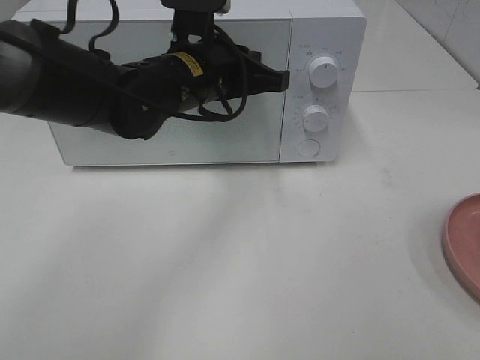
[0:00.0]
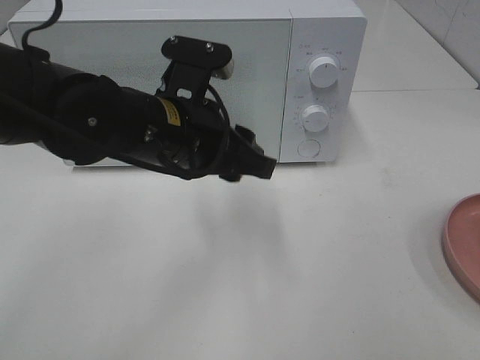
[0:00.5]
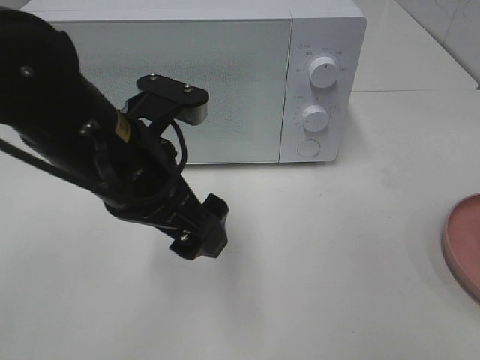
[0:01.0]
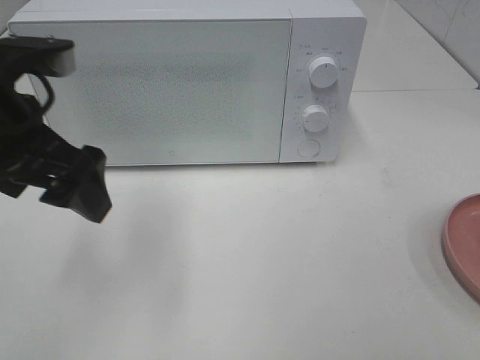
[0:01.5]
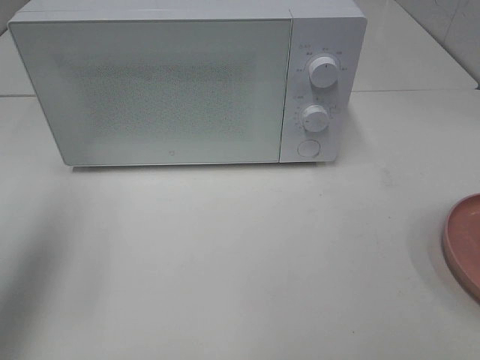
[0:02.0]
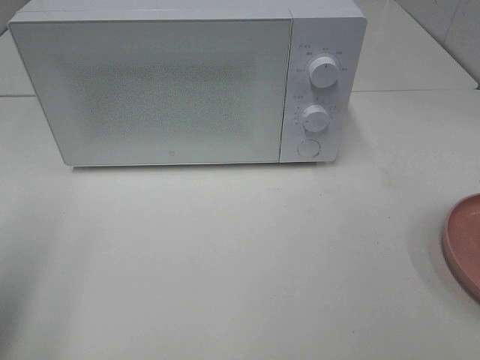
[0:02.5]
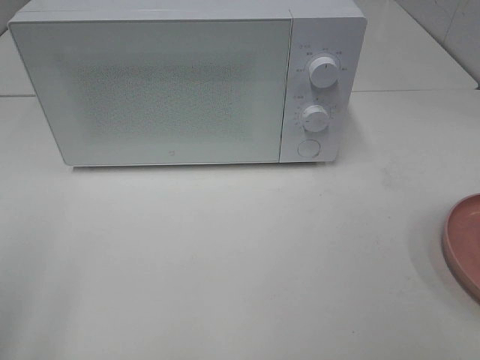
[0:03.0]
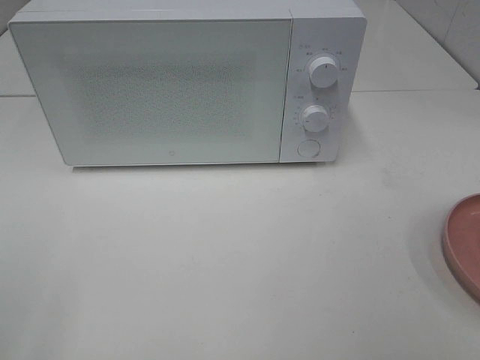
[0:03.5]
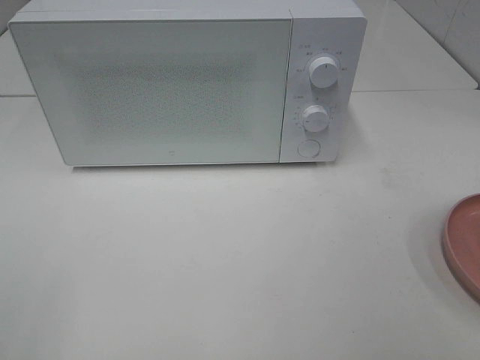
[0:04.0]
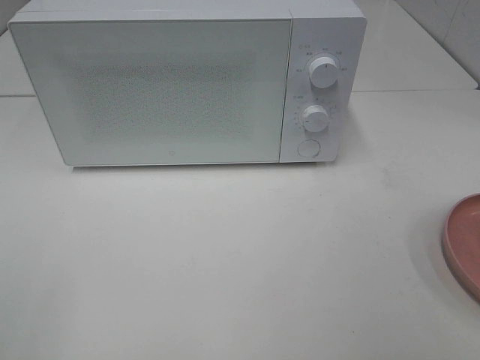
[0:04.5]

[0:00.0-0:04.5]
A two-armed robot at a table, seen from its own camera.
Task of the whole recording: Heat the burger.
0:00.0 to 0:02.0: The left gripper travels to the left, backward and upward by roughly 30 cm, and opens.
0:02.0 to 0:04.5: The left gripper moves backward, some 20 cm.

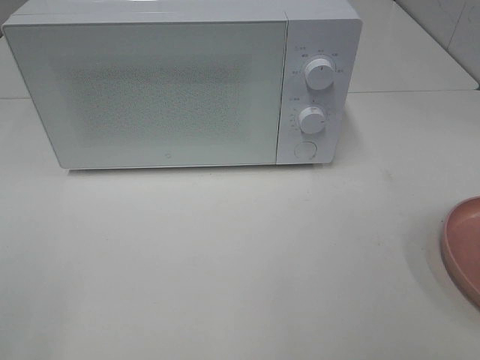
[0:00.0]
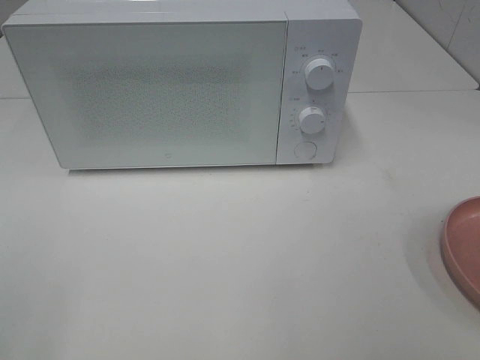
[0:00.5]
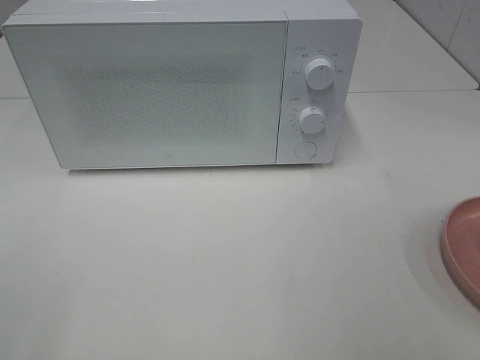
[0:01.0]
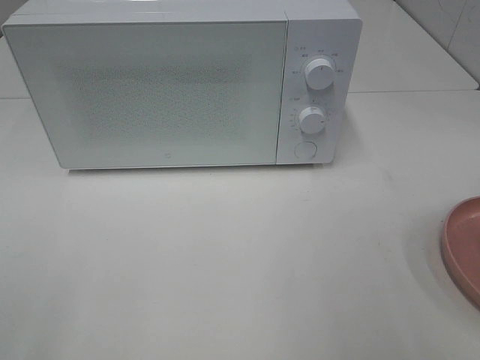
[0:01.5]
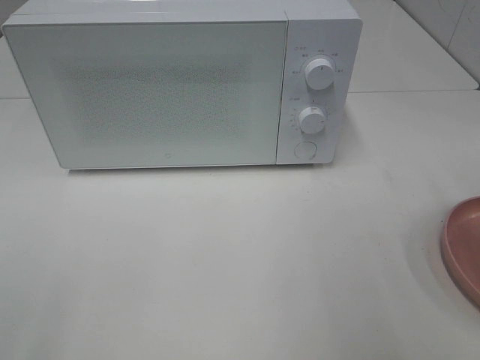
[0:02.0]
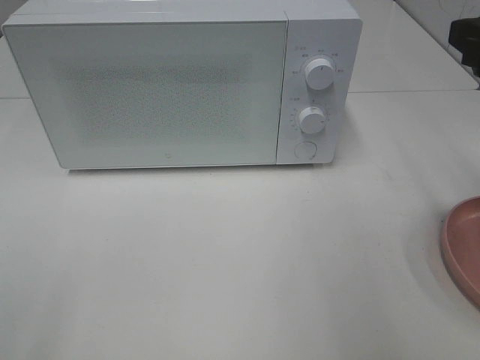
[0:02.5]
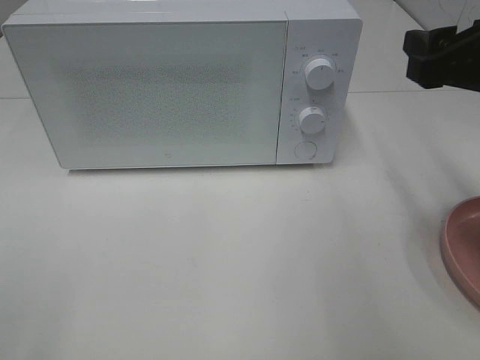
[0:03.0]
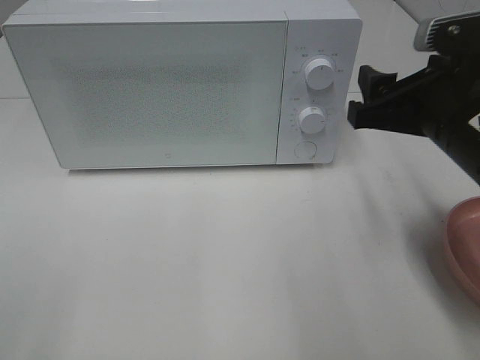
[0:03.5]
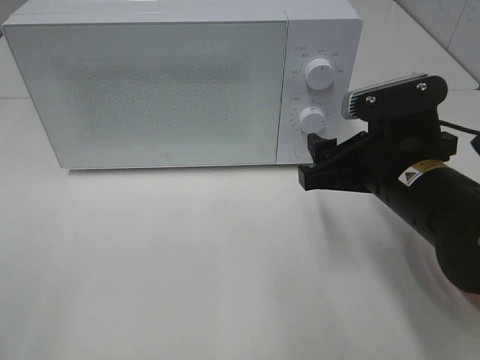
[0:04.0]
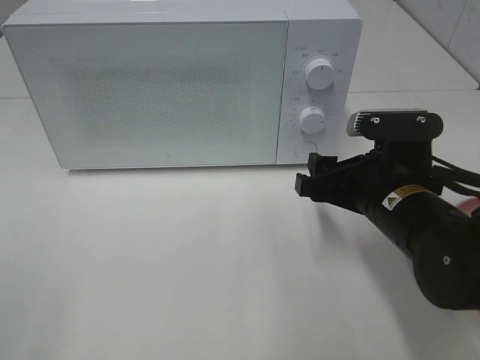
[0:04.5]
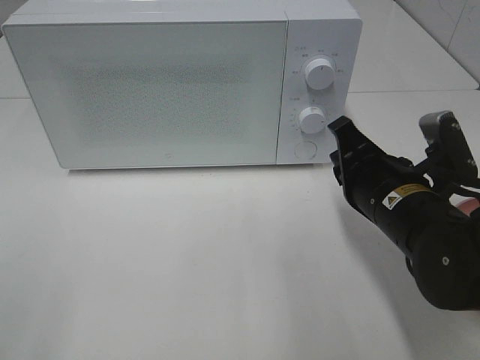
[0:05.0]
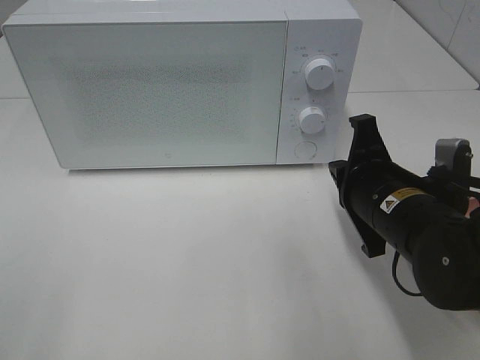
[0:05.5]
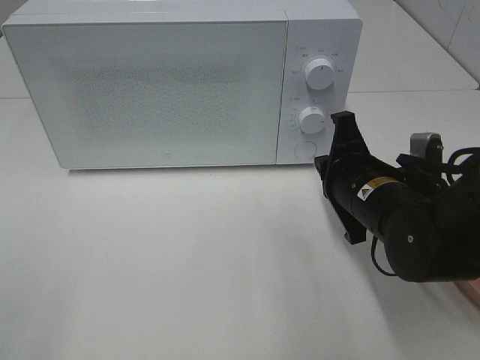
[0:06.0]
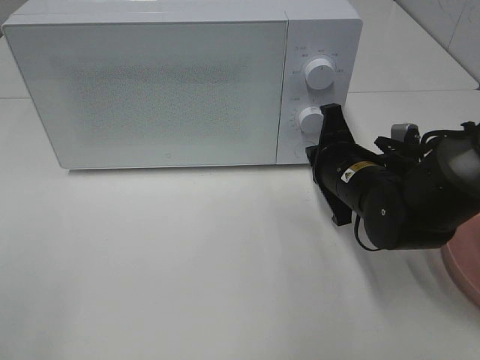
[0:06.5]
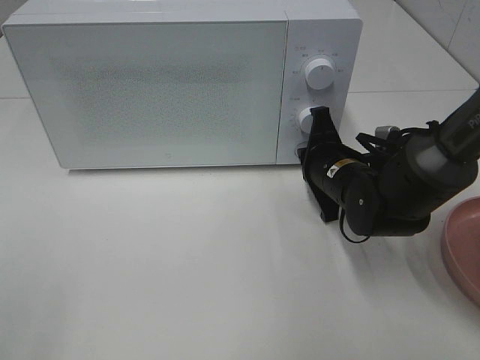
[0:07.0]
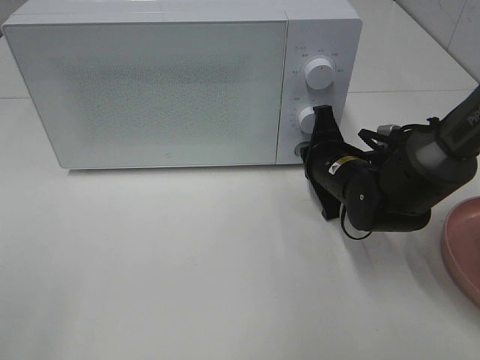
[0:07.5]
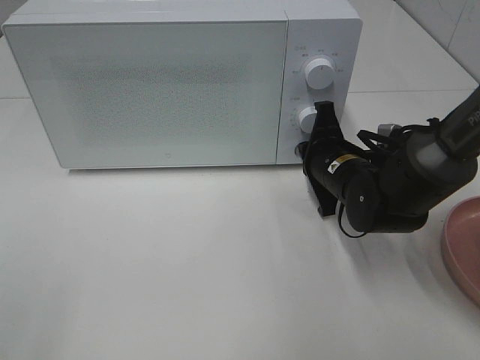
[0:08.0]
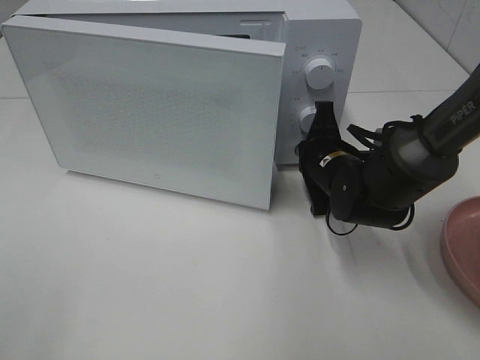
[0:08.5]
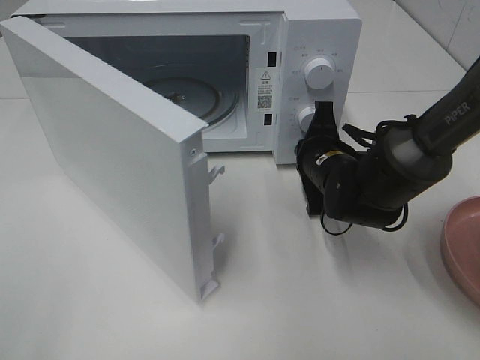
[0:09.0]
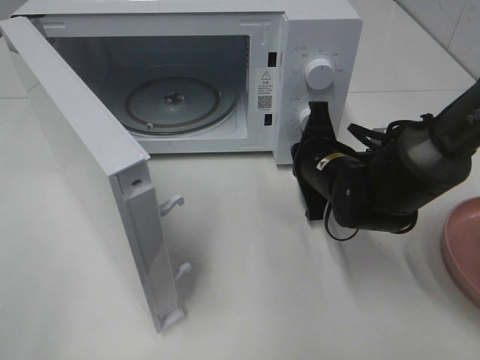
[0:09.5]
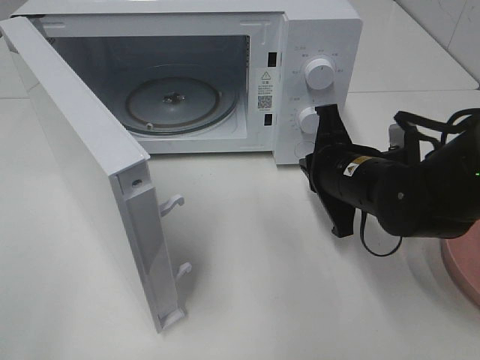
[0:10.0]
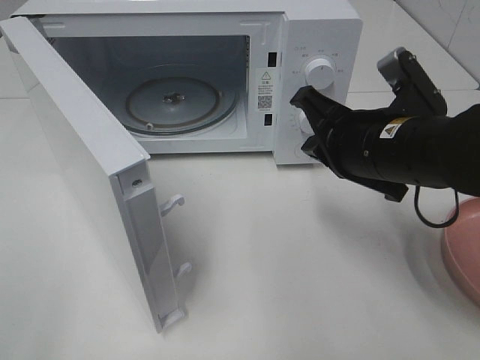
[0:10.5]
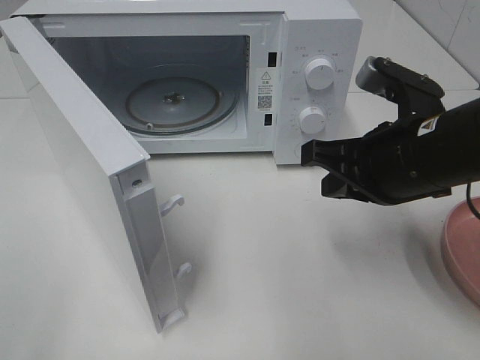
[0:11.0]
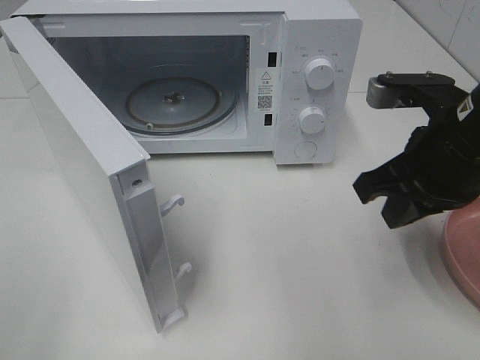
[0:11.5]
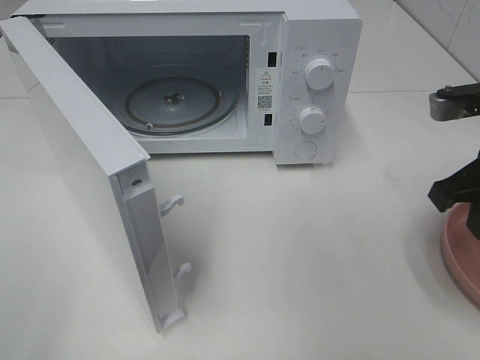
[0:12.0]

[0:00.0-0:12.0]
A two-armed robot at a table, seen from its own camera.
Task of the whole recording: Heat the burger.
Step, 0:00.0 to 0:09.5: Right hand: press the switch.
0:02.0 to 0:04.0: The right gripper travels downward, to the left and forward by about 20 cm.
0:04.0 to 0:06.0: The right gripper heads downward, covering roughly 5 cm, and closes.
0:06.0 to 0:08.0: The right gripper goes roughly 5 cm forward.
0:08.0 to 0:10.0: The right gripper travels backward by some 5 cm.
0:10.0 to 0:12.0: The right gripper goes approximately 15 cm to the right and upward.

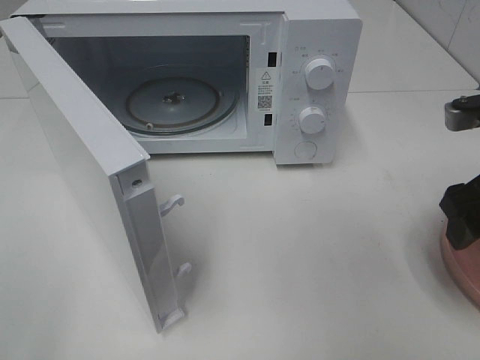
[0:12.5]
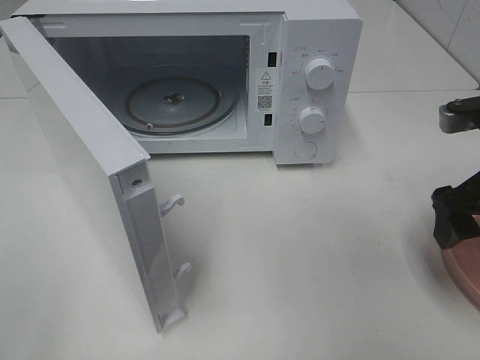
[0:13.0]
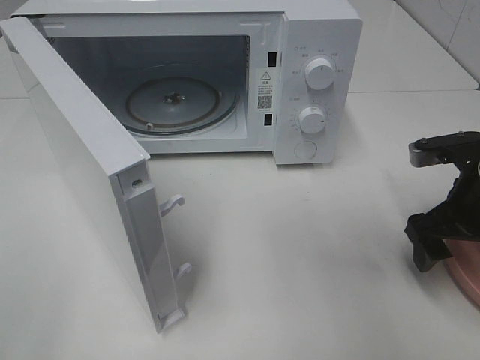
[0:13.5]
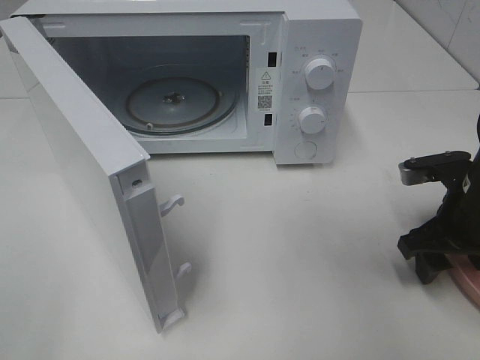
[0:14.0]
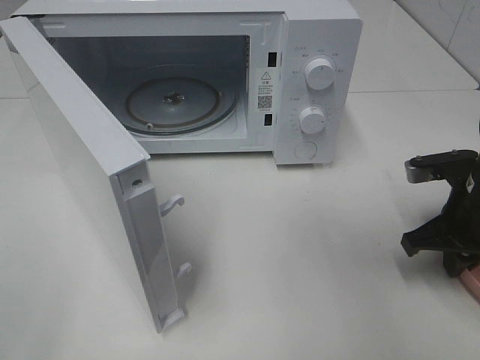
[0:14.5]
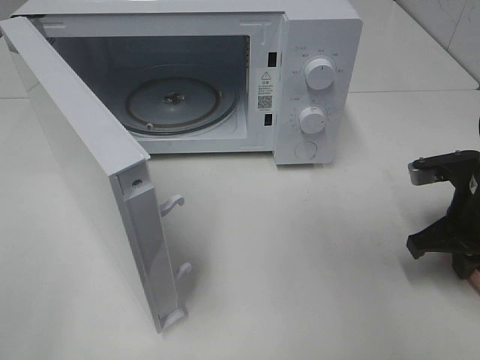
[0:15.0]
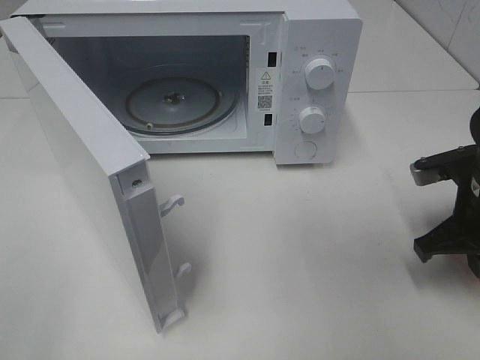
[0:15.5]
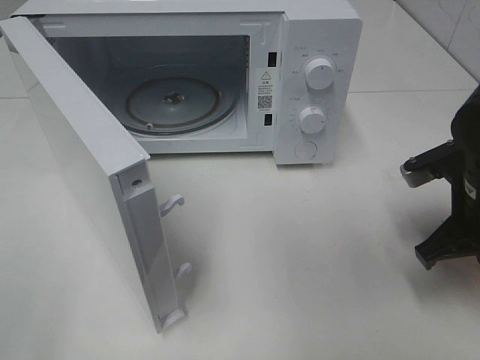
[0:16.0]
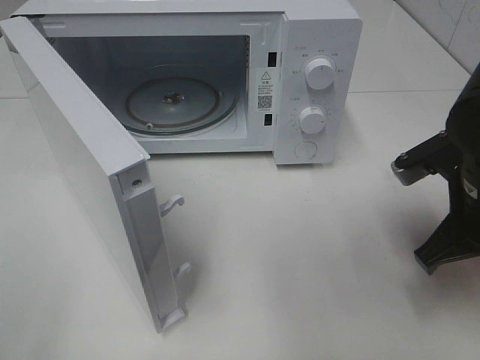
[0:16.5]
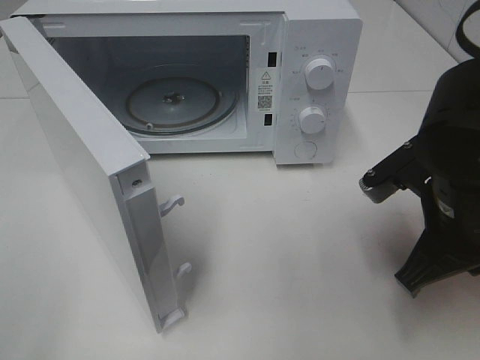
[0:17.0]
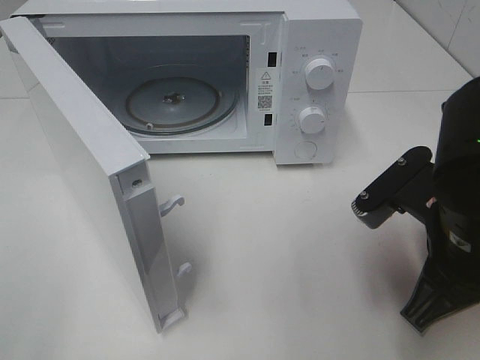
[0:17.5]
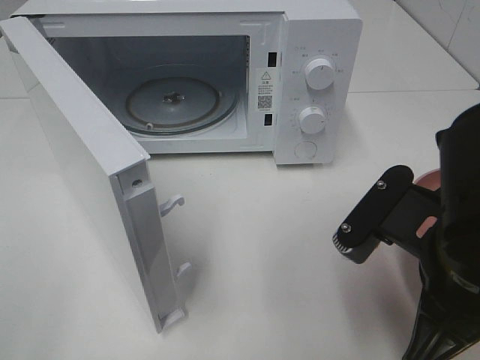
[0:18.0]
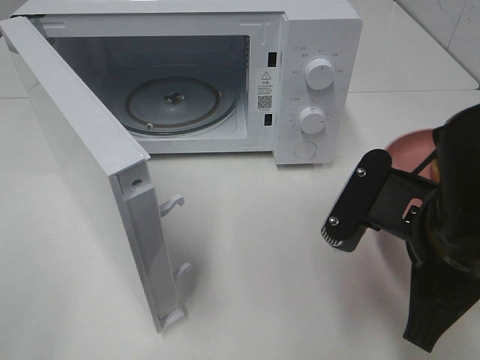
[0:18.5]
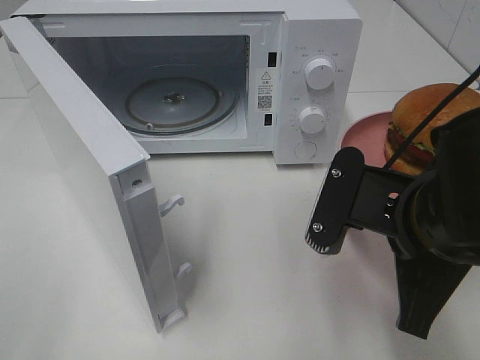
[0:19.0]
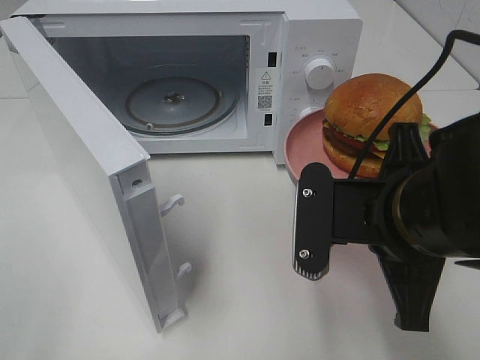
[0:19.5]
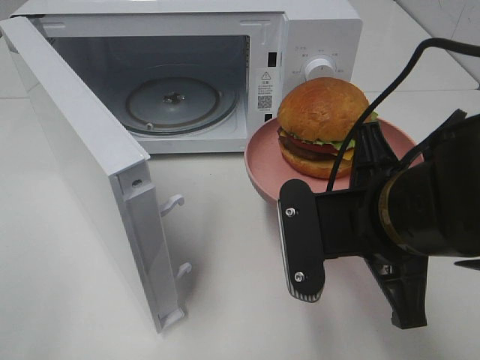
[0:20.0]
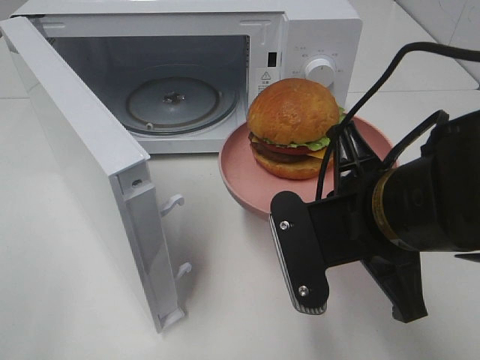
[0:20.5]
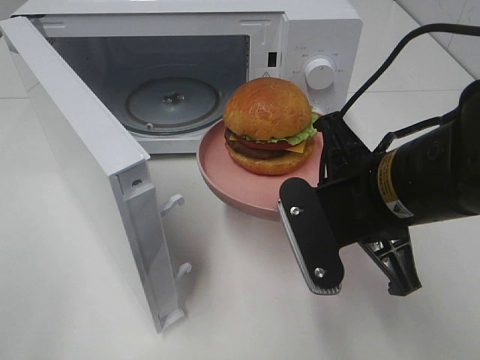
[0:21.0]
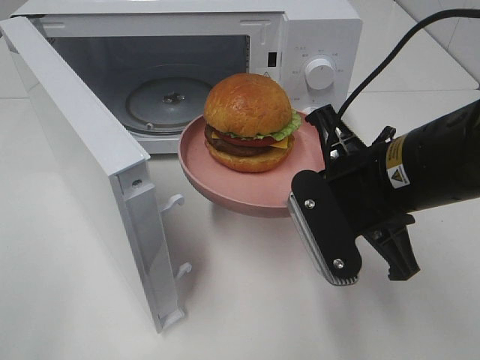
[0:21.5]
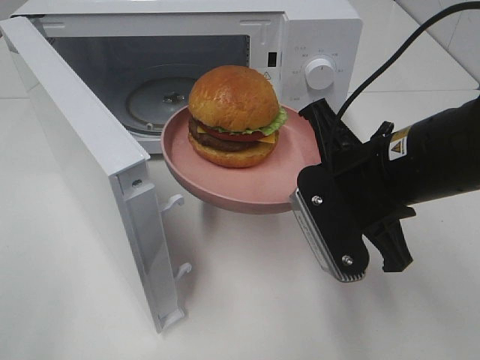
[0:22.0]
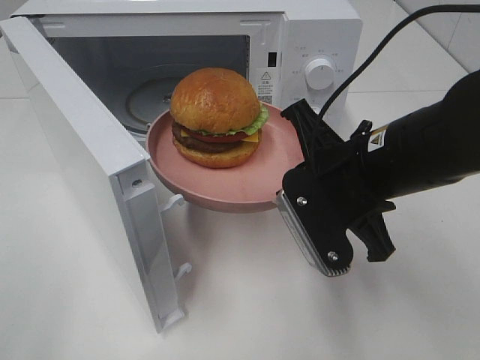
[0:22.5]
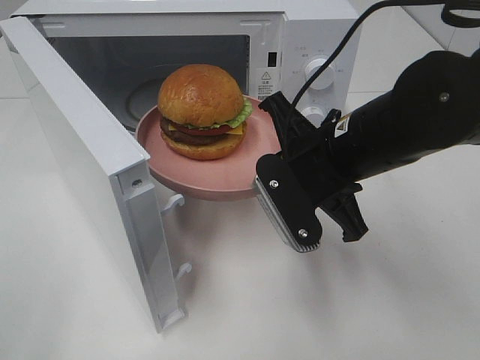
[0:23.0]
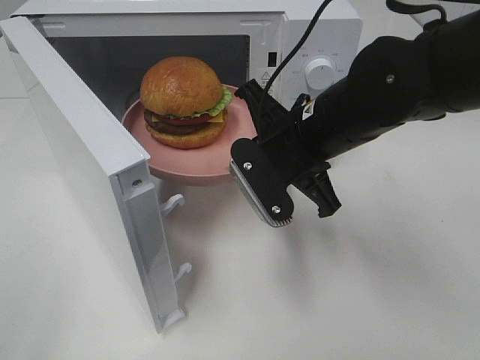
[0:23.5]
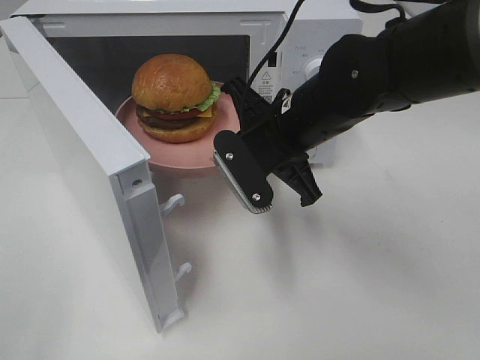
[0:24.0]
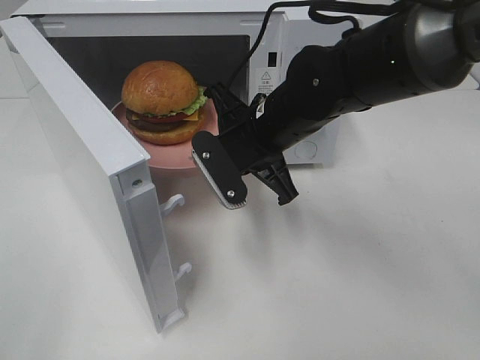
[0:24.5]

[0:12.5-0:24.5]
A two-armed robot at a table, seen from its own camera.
Task of the whole recording: Heat the burger.
Step, 0:12.5 to 0:15.0: Right hand: grab the plate with the hamburger.
0:12.5 to 0:14.5: The right gripper is displaced downward by about 10 cm, and closes its fingers.
0:14.5 to 0:16.5: The right gripper moves upward, some 5 cm.
0:16.5 to 0:18.5: The right gripper heads backward and to the left, covering about 10 cm.
0:20.5 to 0:22.5: The right gripper moves forward, roughly 5 cm.
0:22.5 to 0:24.5: The right gripper travels forward and to the left by about 10 cm.
